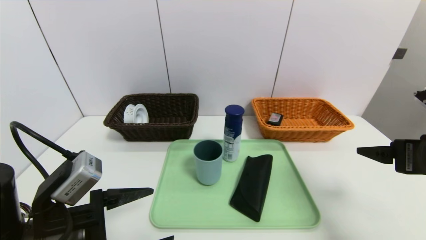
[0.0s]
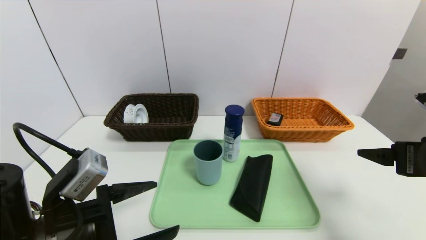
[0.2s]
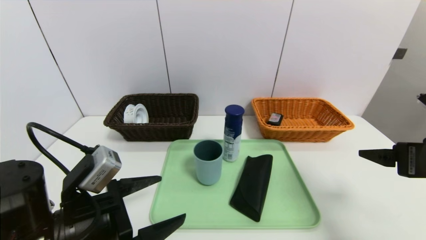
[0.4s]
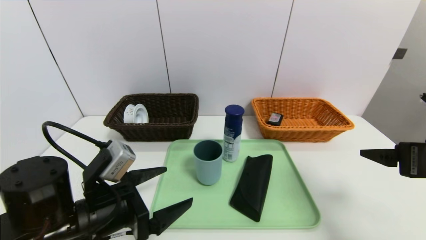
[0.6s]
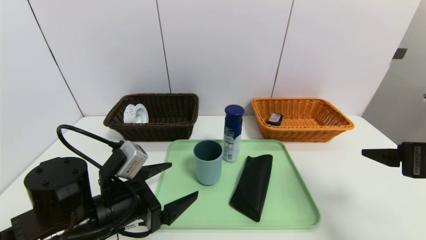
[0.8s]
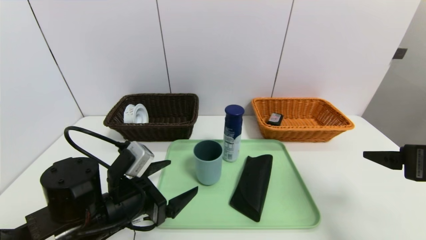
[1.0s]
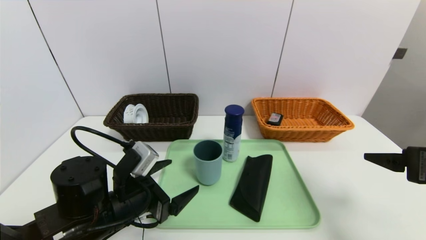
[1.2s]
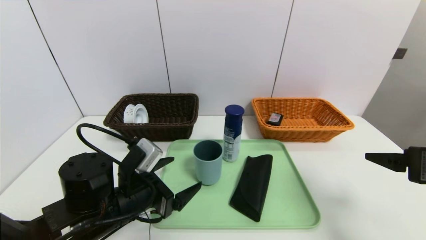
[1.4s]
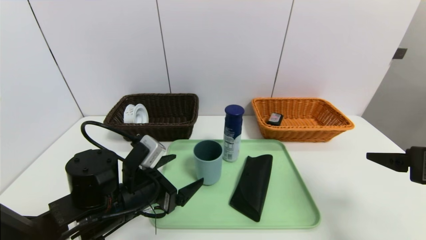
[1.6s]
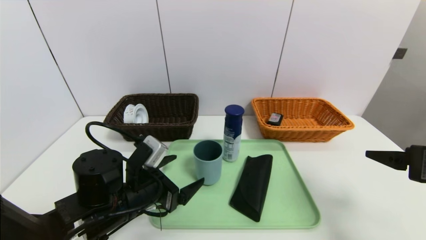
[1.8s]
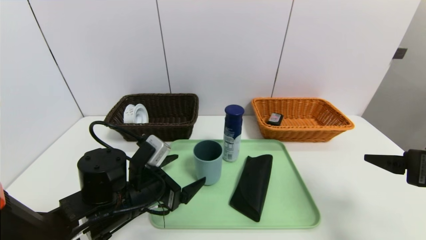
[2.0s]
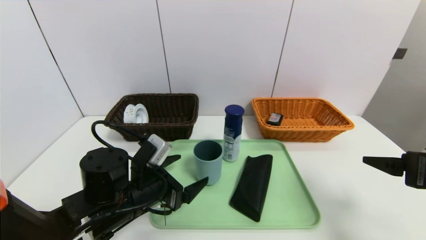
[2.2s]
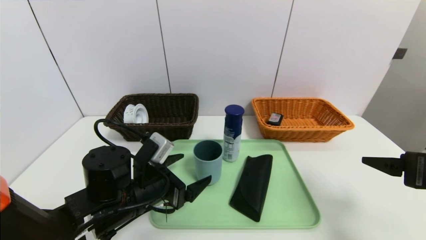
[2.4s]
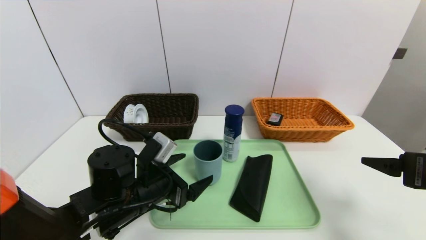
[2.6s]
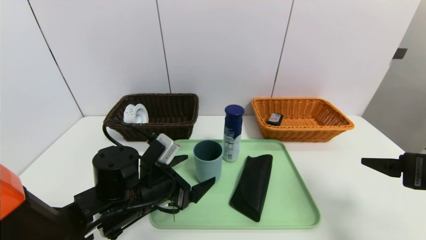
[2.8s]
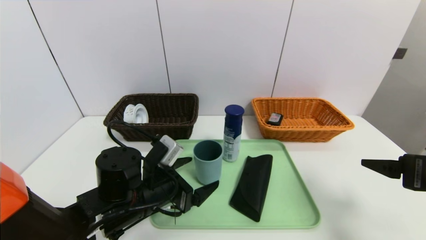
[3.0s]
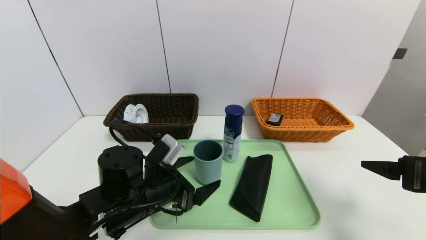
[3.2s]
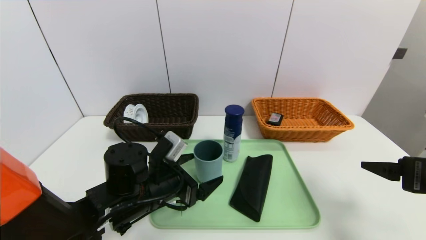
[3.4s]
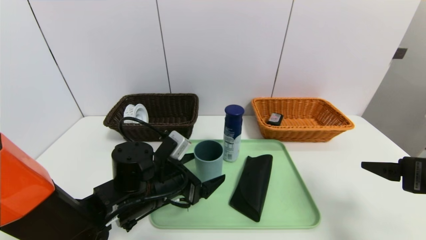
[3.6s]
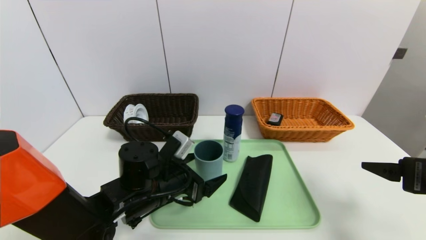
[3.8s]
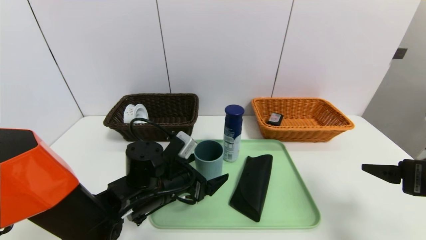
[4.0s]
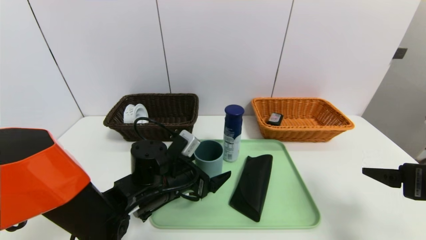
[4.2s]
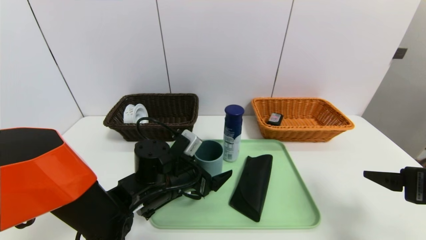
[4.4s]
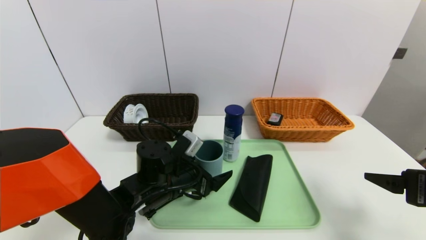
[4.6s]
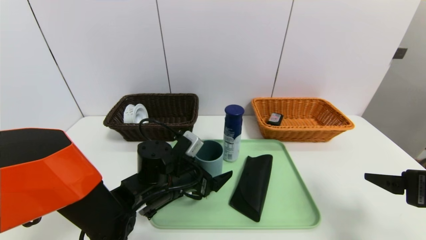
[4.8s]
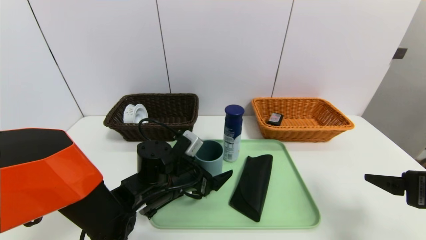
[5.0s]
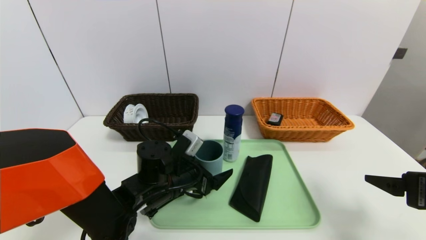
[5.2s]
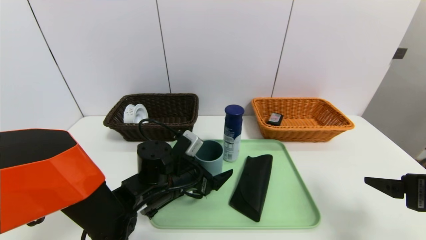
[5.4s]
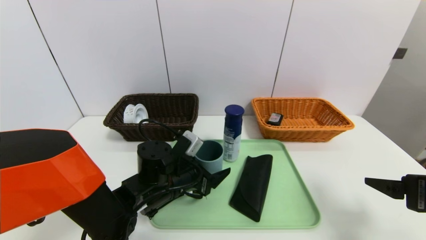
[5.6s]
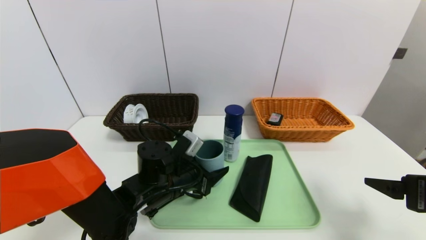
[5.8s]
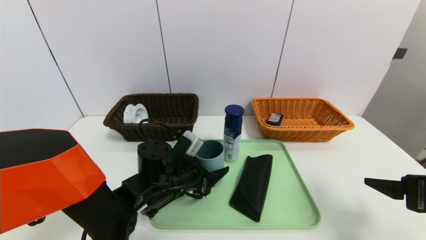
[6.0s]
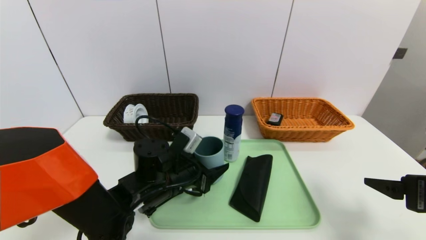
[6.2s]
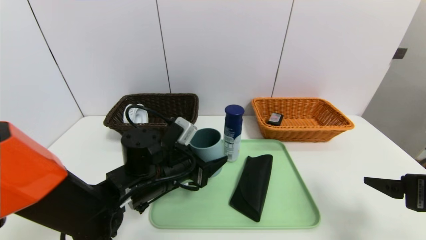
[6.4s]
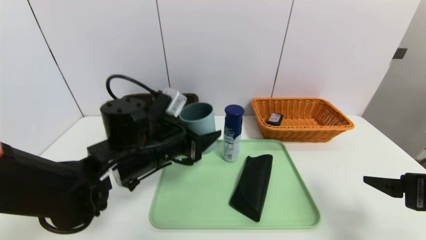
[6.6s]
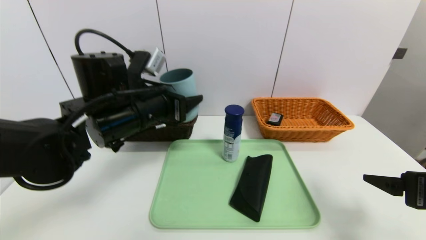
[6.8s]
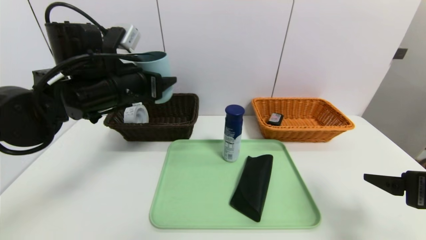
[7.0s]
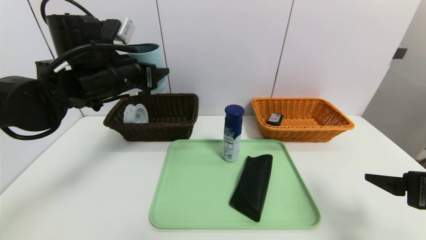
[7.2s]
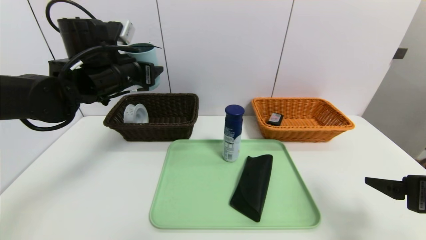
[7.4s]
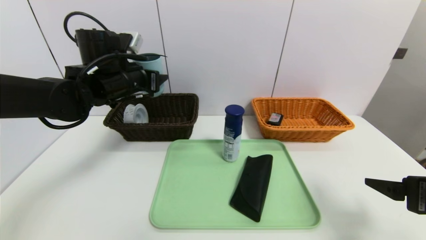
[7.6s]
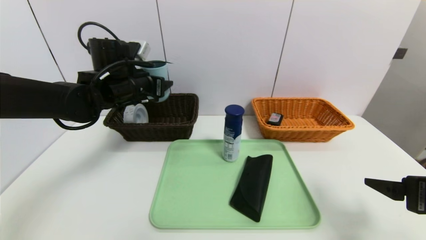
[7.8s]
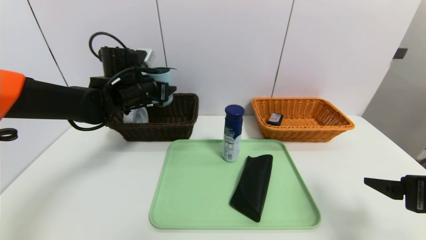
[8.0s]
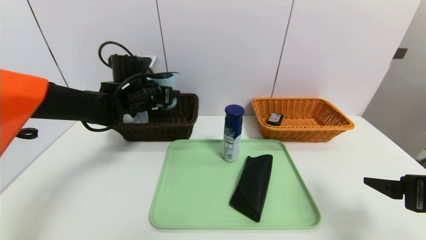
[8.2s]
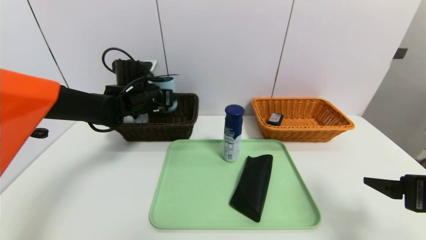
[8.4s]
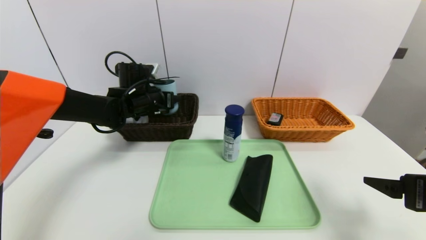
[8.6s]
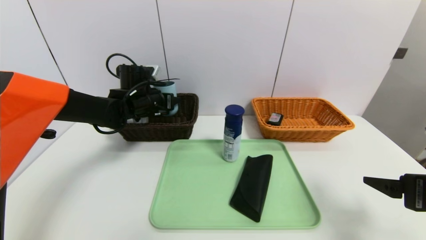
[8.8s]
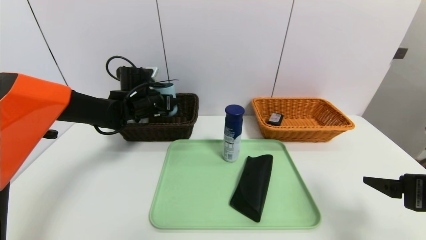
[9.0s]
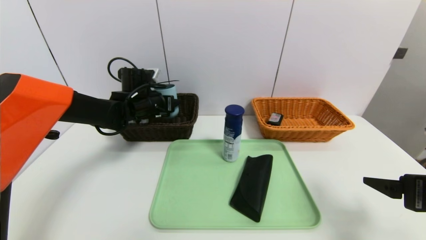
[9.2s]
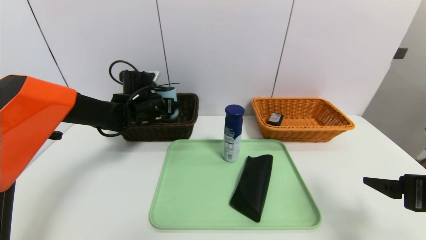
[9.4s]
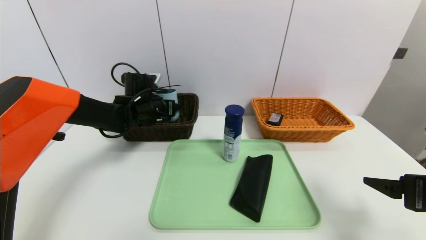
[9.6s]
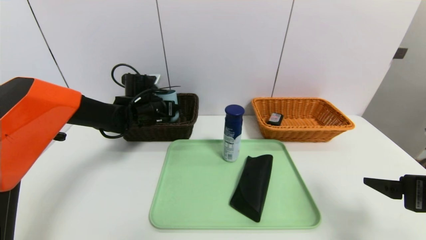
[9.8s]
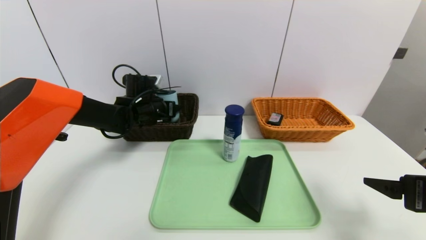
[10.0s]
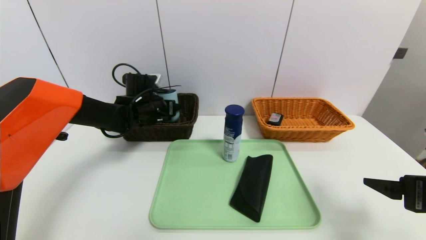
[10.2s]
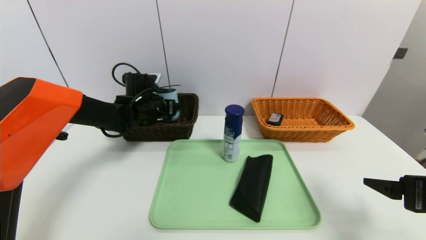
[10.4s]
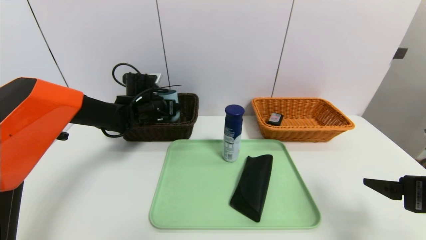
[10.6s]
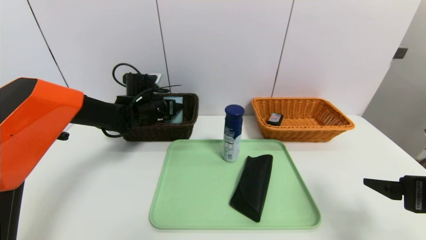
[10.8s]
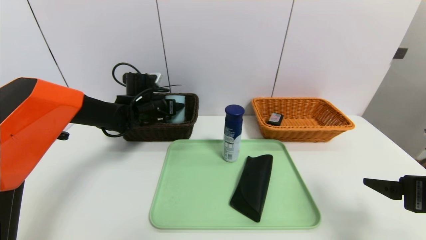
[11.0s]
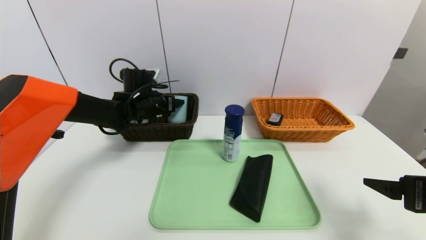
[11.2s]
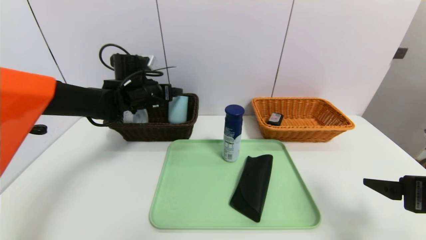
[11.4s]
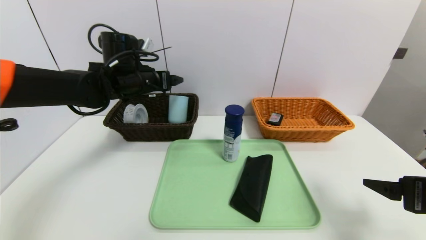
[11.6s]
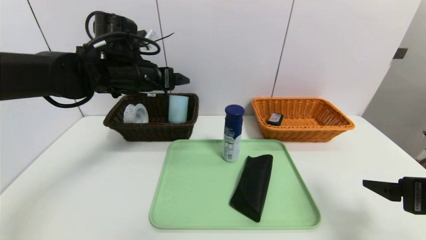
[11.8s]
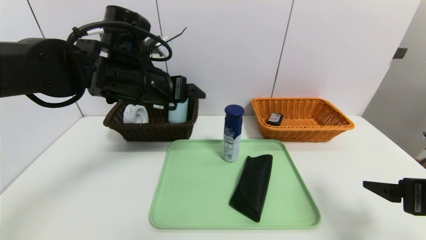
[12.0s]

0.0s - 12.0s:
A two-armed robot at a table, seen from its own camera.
Task of the whole recording: place the food in the right basket with the right gripper, and place the non food items in the left basket with the left gripper.
Step, 0.0s - 11.4s: Grasp the blue cup and put it in the left basket.
0.0s - 1.6s: The left gripper shifts some 10 cm forward and to the right.
1.6s - 3.0s: The grippers stay close to where they were, moving slightly.
3.0s - 4.4s: The left gripper moves approximately 5 cm.
4.4s - 6.0s: The left gripper closes up.
6.0s - 7.6s: The left gripper shifts some 25 cm upward, to the left and forward.
7.6s - 9.0s: The left gripper is displaced downward and forward by roughly 10 cm.
9.0s - 10.4s: There are only small adjustments of the grippers.
10.4s - 12.0s: The left gripper is displaced backward and upward by roughly 20 cm, and opens its fingers.

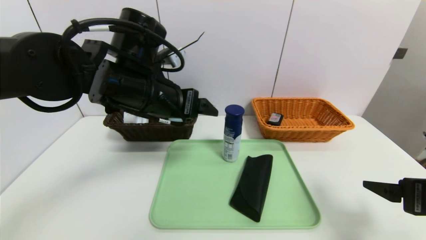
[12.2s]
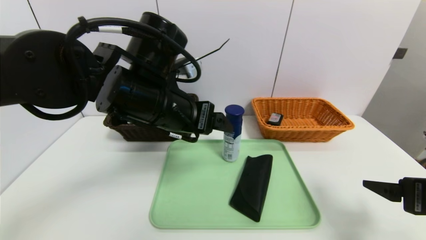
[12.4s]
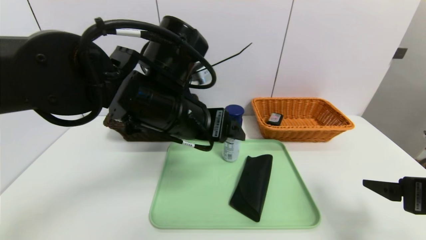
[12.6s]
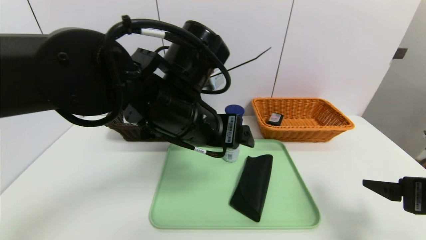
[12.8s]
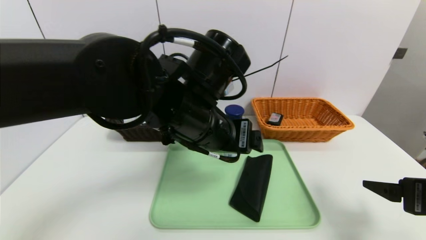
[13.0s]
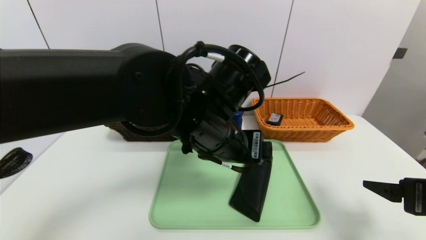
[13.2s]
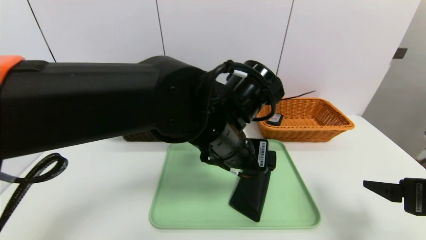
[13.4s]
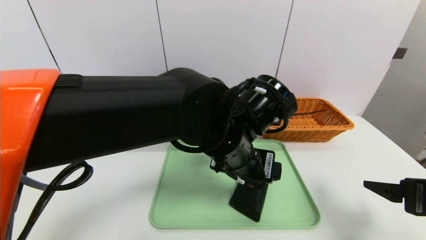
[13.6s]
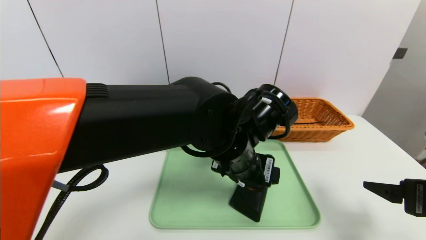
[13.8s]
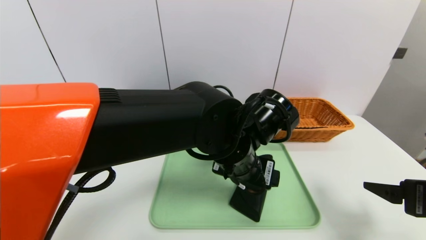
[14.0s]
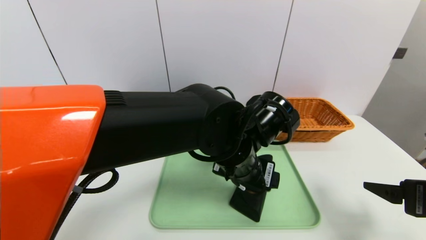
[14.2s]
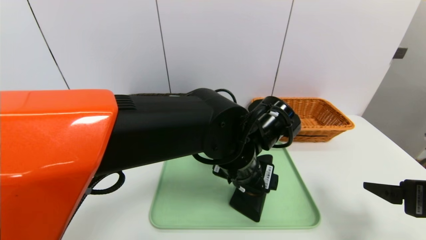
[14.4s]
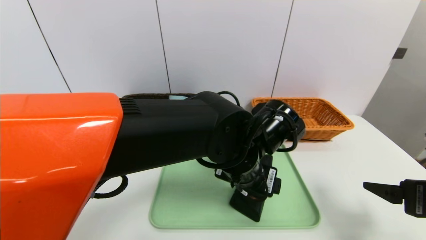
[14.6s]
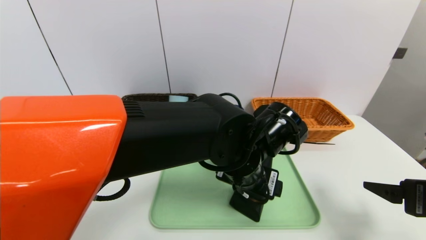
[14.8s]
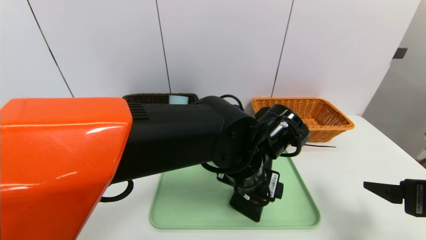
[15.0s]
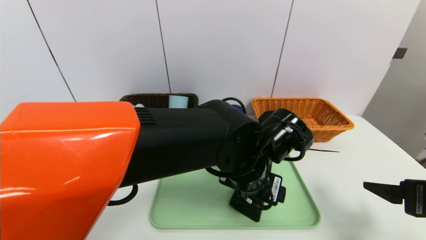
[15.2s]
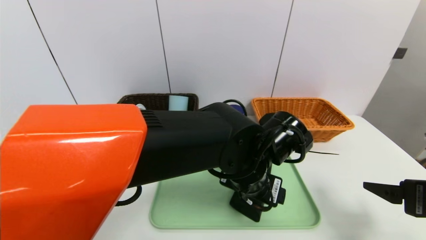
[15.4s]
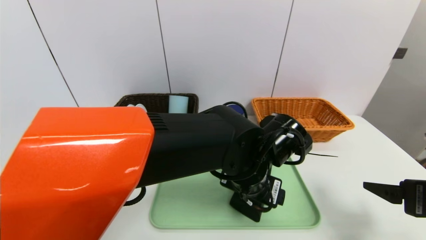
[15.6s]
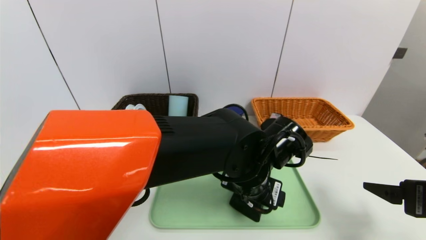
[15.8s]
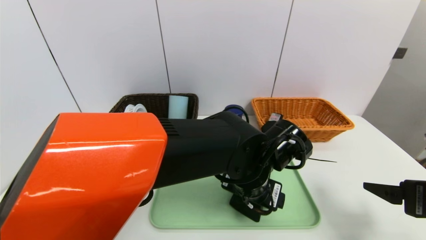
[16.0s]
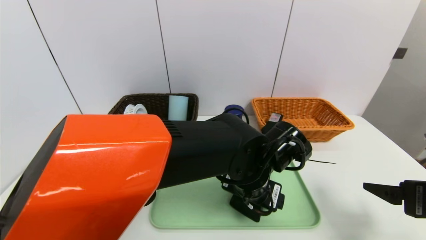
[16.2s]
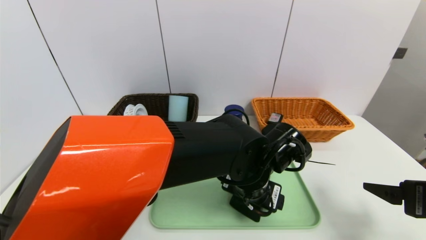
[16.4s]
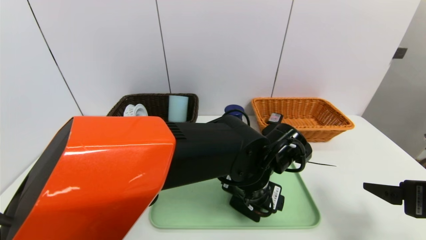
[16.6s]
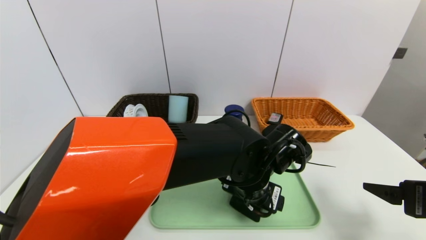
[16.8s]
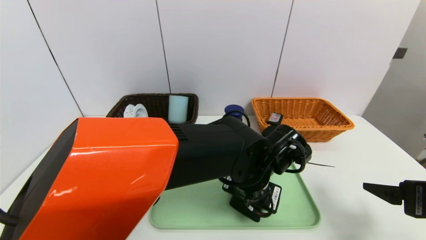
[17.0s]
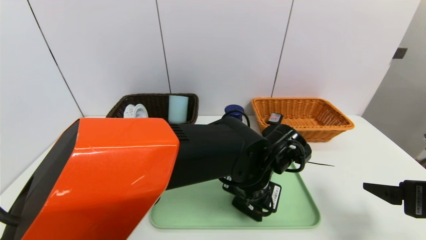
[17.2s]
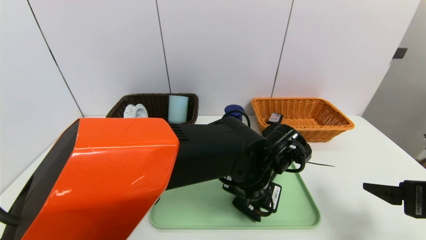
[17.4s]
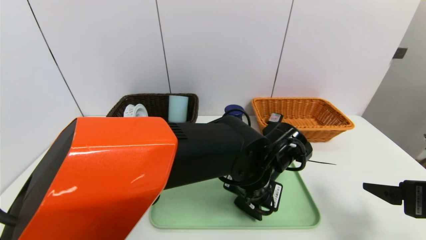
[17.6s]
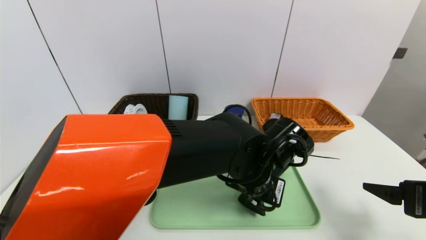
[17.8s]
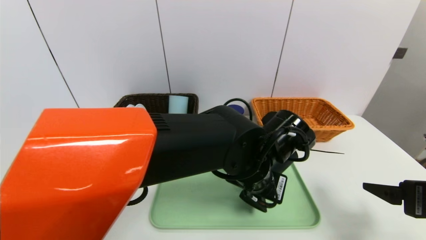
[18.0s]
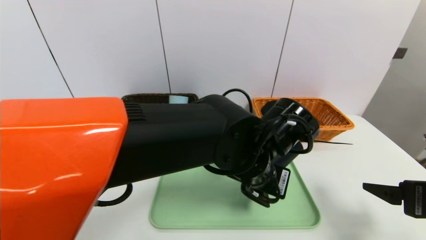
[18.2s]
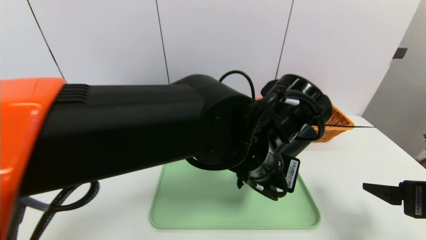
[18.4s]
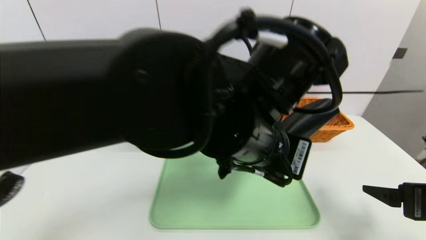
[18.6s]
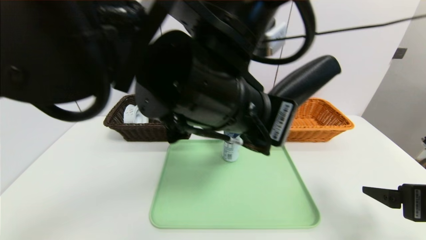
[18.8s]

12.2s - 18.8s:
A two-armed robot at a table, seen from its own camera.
Task of the whole recording: place the food in the right basket with the right gripper, and place the non food items in the left basket with the left gripper.
12.2s - 13.8s: The left gripper heads to the right and downward, covering roughly 15 cm.
15.4s - 17.2s: The left gripper closes its fingers.
17.2s - 18.8s: The left gripper shifts roughly 20 cm upward and to the left, and closes up.
